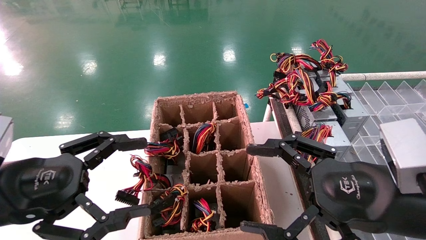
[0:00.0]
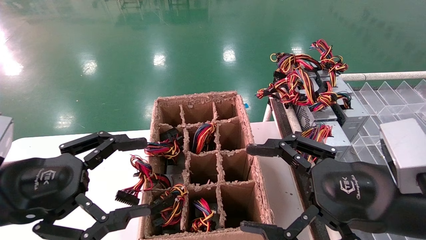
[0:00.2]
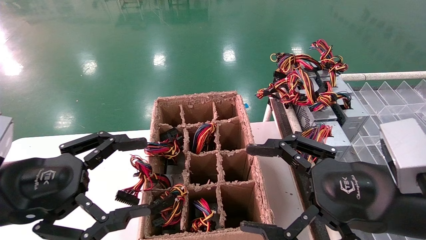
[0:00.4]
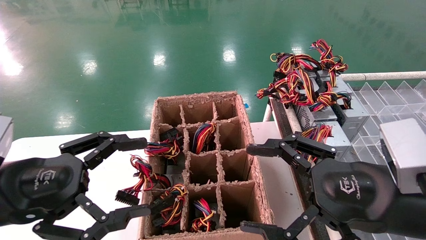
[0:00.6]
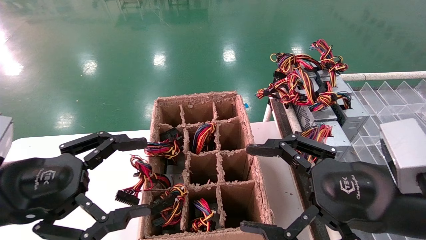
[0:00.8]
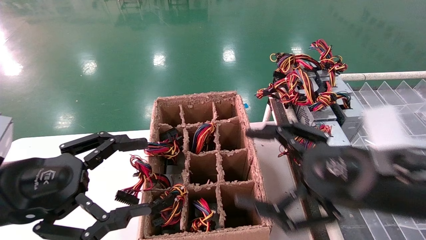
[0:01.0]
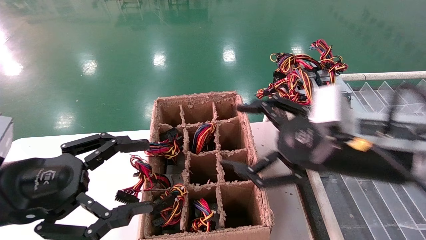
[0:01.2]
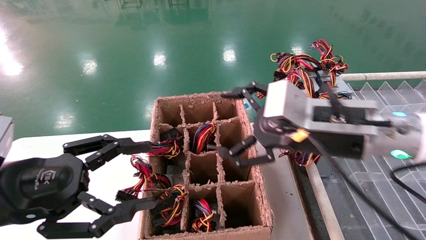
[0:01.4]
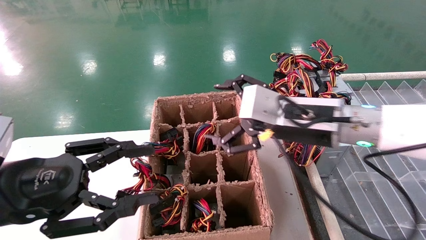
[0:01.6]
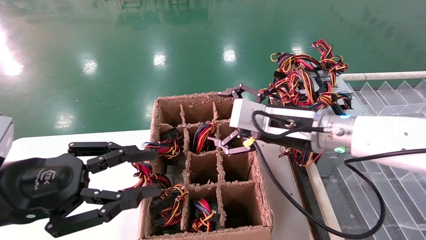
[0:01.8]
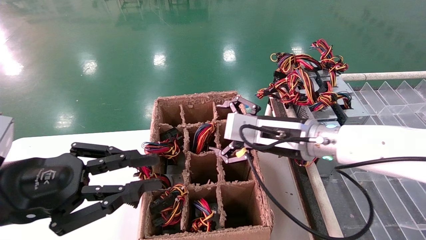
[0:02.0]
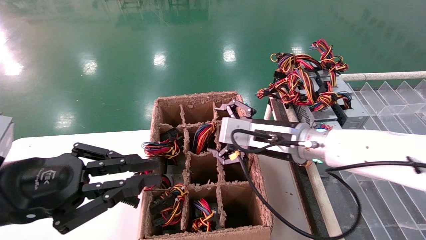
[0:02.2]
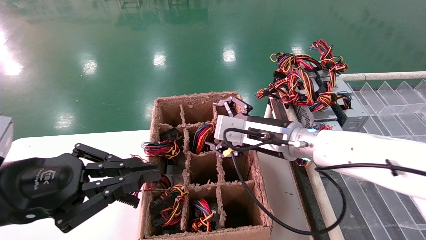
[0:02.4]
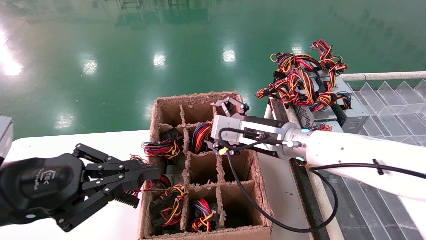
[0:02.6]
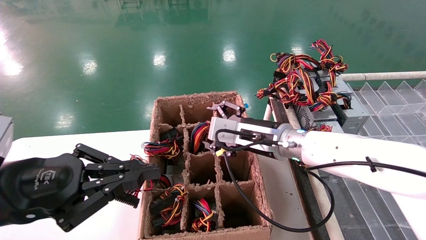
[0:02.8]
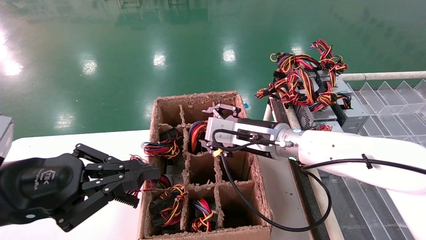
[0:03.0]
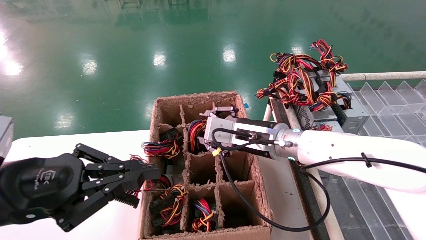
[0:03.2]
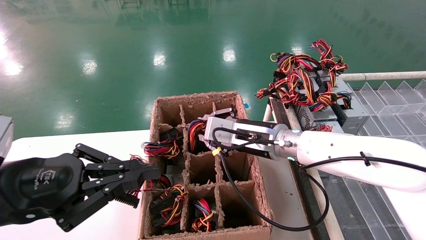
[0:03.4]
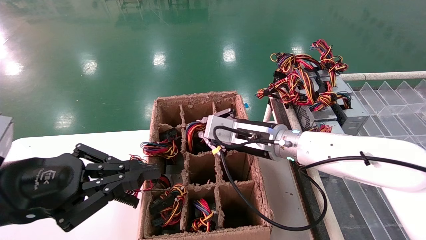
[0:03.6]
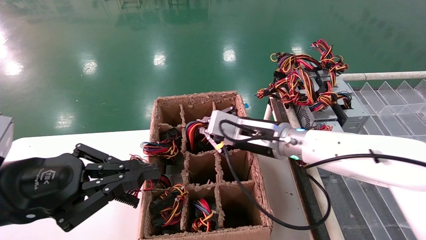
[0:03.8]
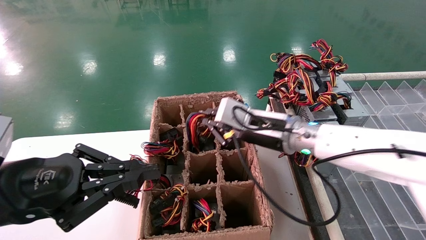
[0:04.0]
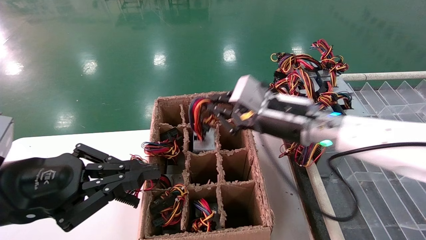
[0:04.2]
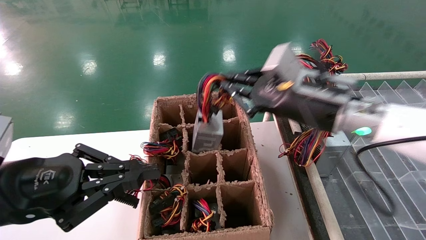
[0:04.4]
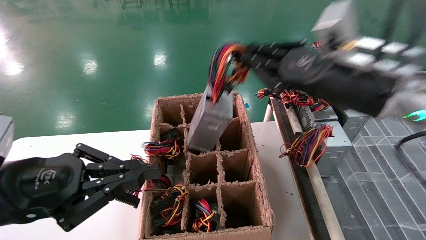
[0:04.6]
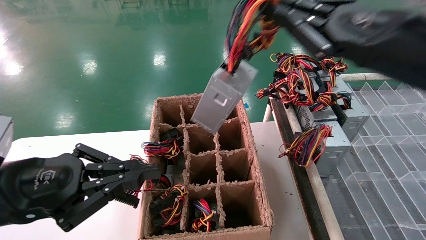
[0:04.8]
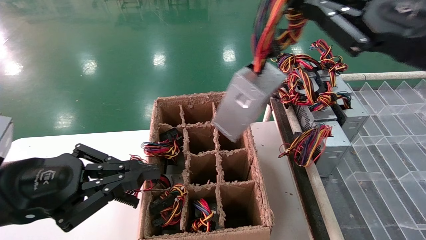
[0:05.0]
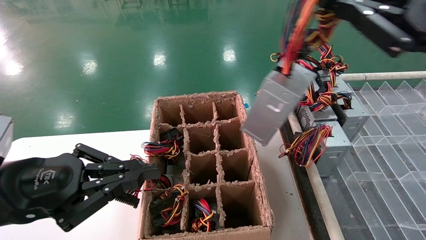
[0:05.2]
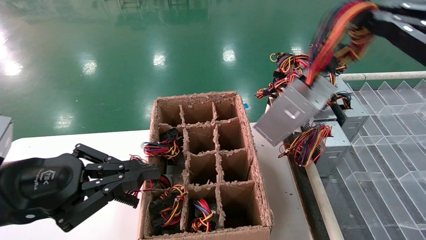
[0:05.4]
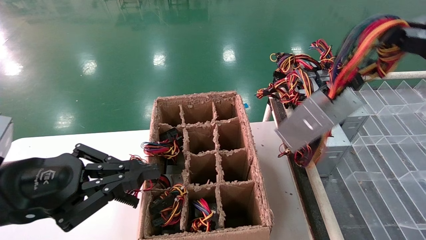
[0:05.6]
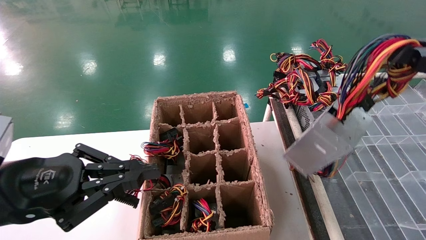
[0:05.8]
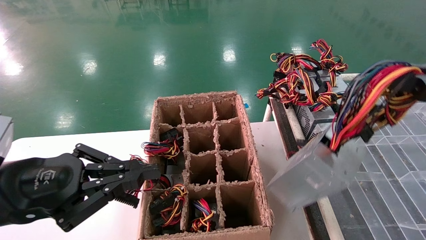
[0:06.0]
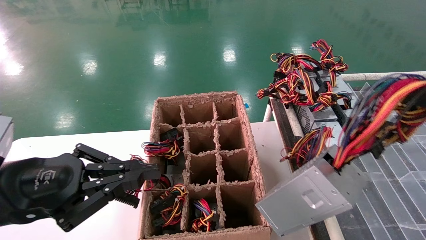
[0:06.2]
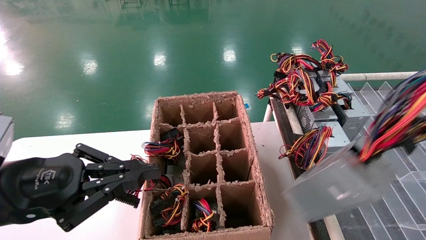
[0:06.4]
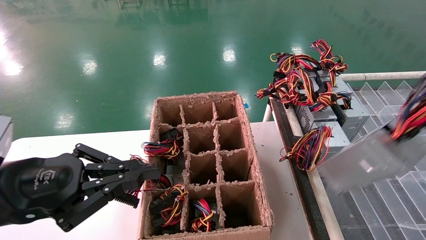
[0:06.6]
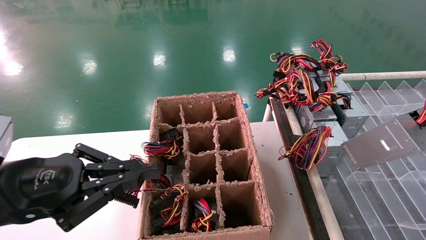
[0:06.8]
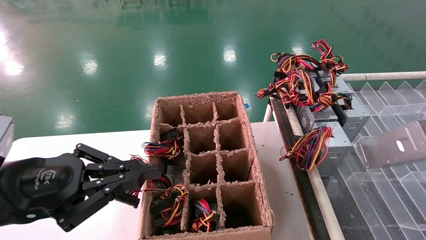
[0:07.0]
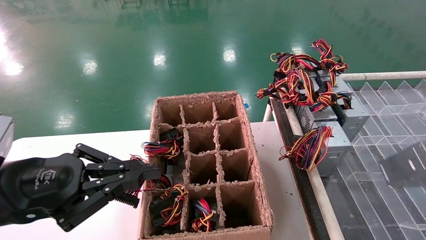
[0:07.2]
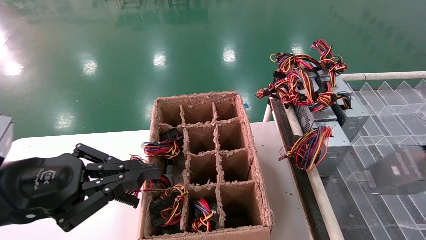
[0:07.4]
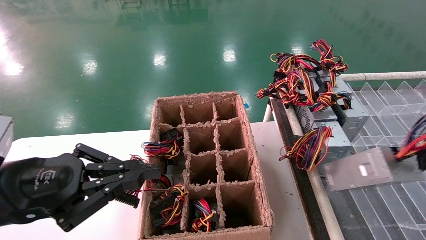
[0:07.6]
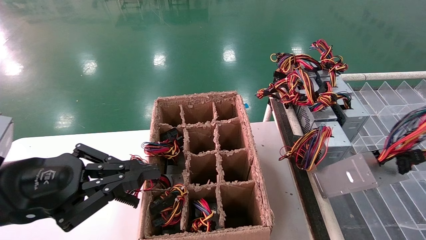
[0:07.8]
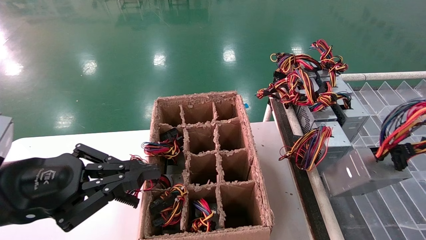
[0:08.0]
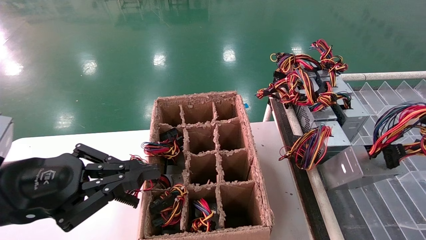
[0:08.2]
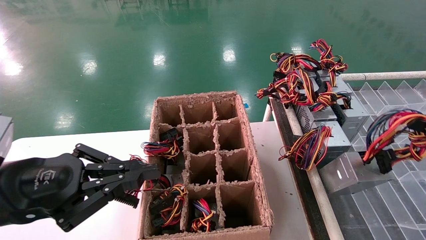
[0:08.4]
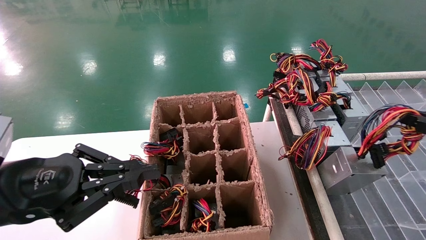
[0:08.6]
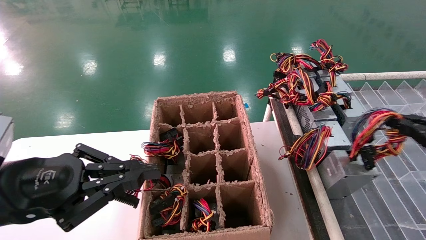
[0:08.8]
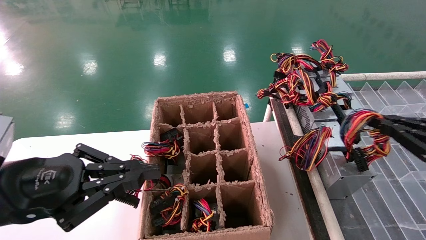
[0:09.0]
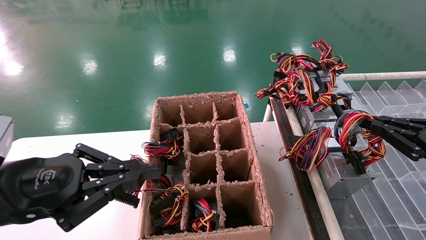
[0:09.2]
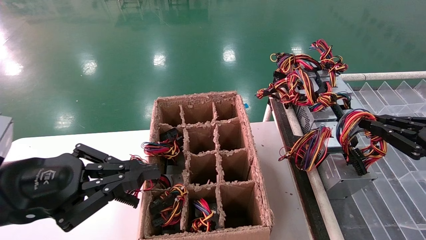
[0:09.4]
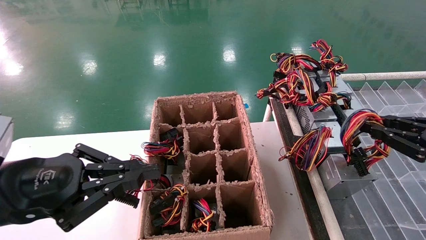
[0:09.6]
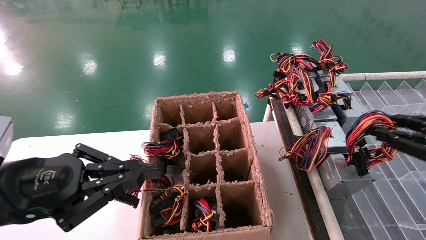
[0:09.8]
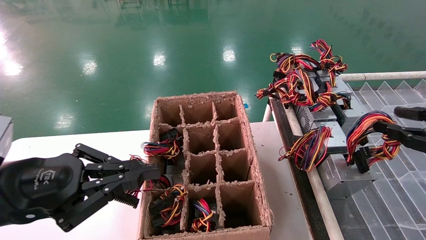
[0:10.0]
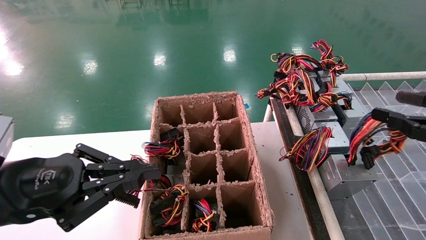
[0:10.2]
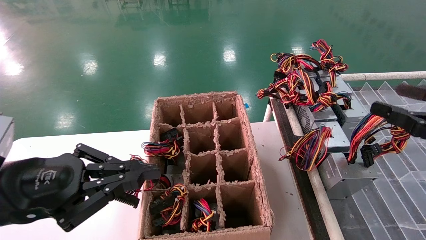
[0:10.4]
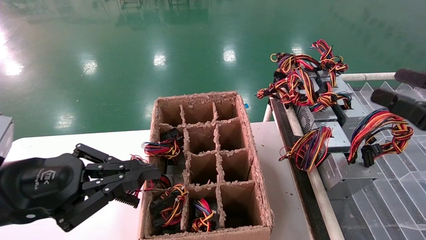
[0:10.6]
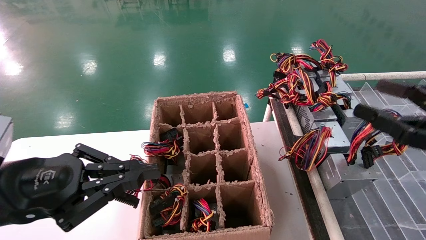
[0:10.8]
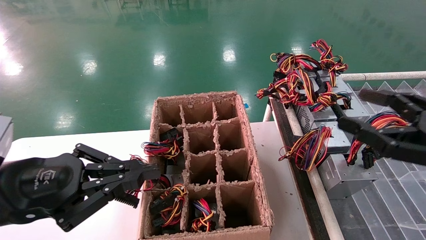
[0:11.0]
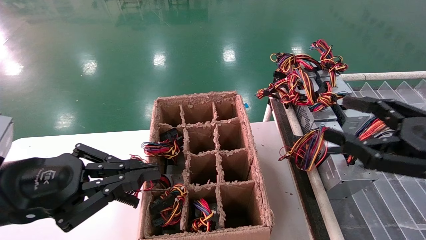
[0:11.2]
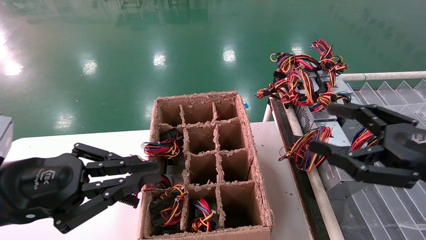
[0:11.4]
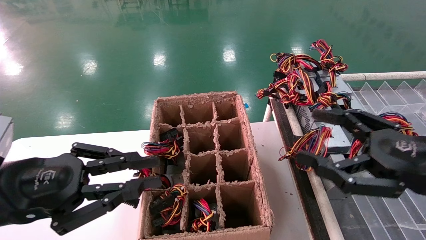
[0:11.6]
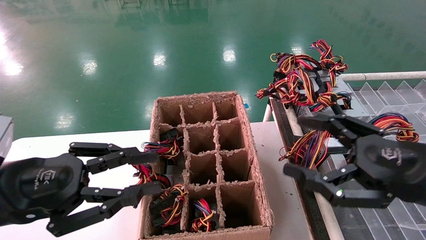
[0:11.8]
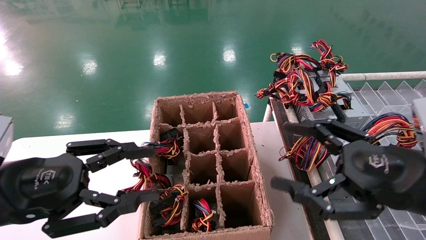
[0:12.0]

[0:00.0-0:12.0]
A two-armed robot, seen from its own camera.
Step, 0:01.4 to 0:03.8: Grab the main unit power supply from the containment box.
Step, 0:04.0 to 0:10.6: Place the main unit power supply in the designated area.
0:00.0 to 0:01.6: The right gripper heads forward and to the left, covering some 15 cm.
0:01.6 to 0:03.0: The left gripper closes its fingers. The right gripper heads forward, downward and to the left, covering approximately 10 cm.
0:03.0 to 0:04.4: The right gripper shifts about 15 cm upward, to the right and backward, and closes up.
0:04.4 to 0:06.0: The right gripper moves backward and to the right, approximately 30 cm.
0:06.0 to 0:07.6: The right gripper goes roughly 10 cm to the right and downward.
0:07.6 to 0:09.0: The right gripper is displaced forward by about 10 cm.
0:09.0 to 0:10.4: The right gripper opens.
0:10.4 to 0:12.0: The right gripper shifts approximately 10 cm to the left. The left gripper opens.

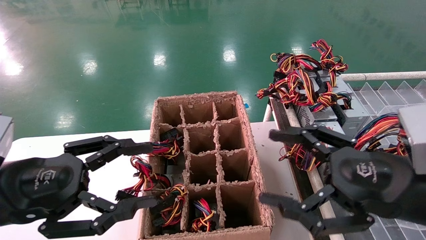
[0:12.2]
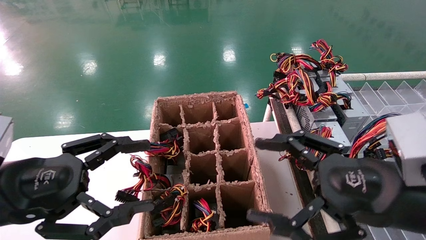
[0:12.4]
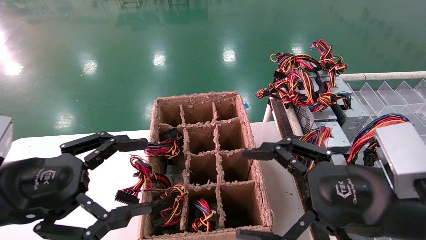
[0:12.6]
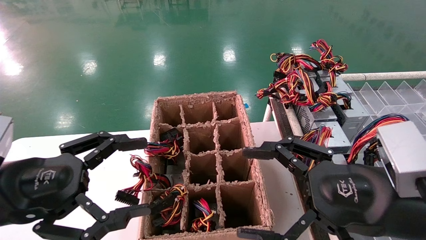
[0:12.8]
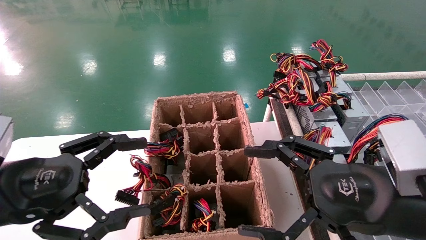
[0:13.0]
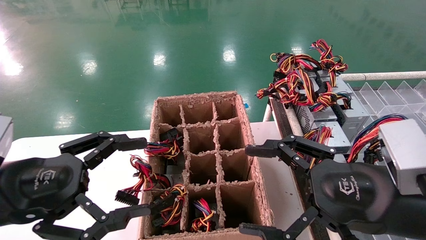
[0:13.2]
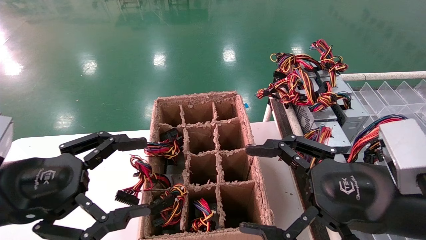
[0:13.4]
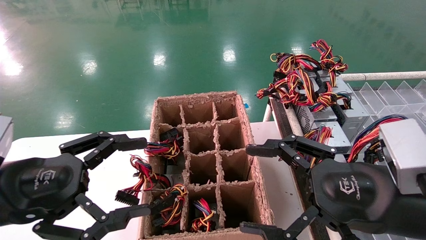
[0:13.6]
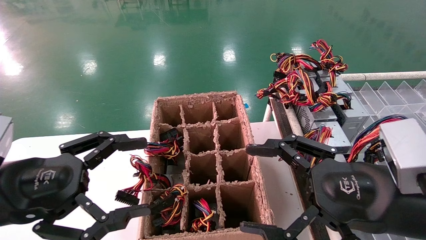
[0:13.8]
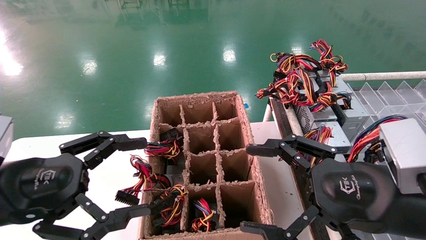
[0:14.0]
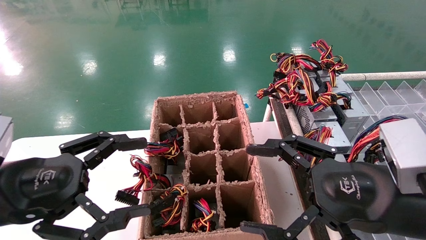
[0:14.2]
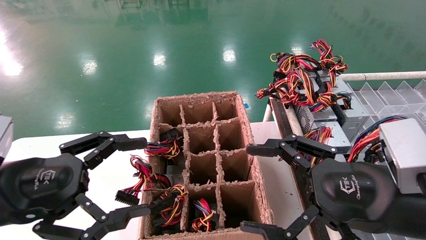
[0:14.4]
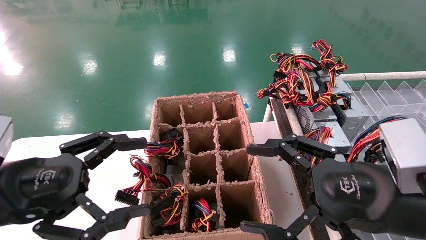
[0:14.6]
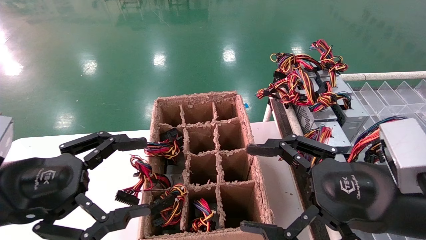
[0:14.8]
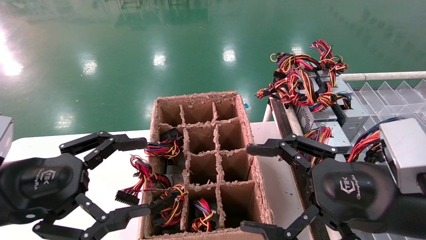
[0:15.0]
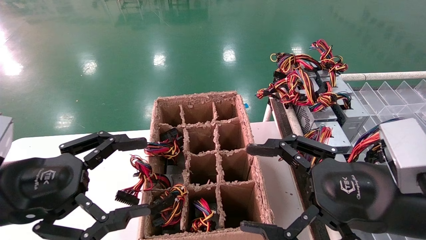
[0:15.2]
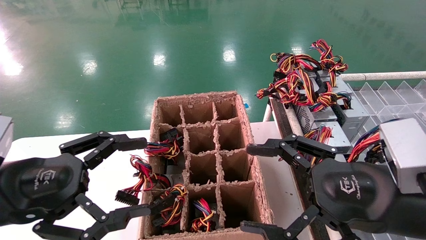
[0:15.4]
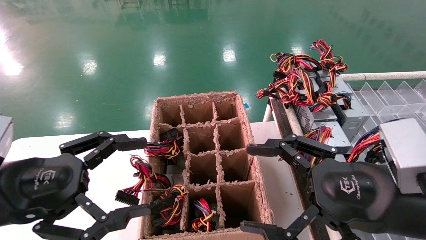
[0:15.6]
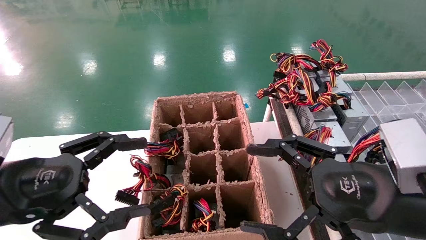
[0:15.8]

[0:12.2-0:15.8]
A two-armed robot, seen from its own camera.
0:12.2 to 0:14.0: The left gripper opens up.
0:14.0 to 0:15.8: The two grippers keep their place.
